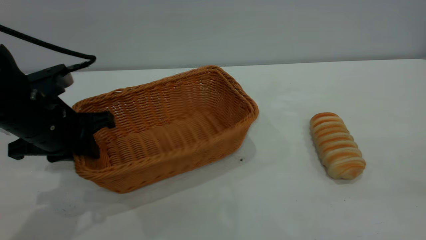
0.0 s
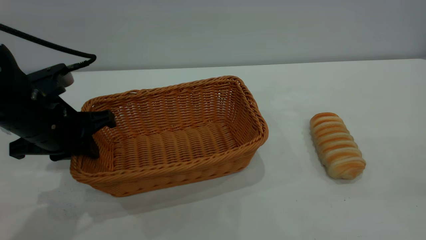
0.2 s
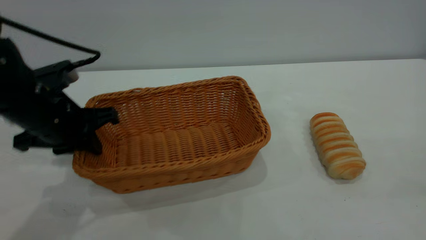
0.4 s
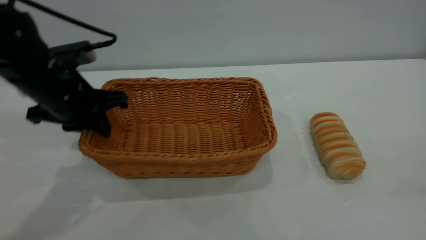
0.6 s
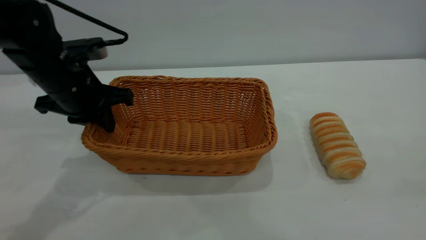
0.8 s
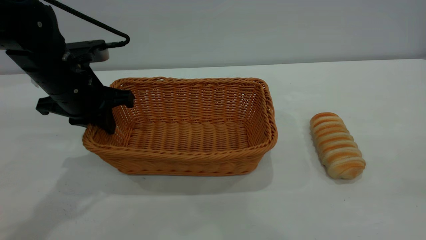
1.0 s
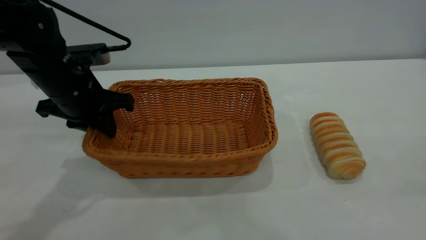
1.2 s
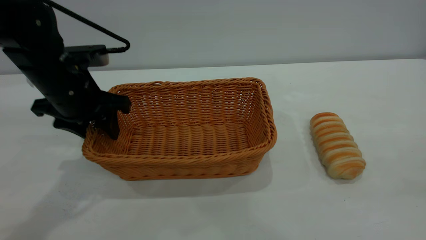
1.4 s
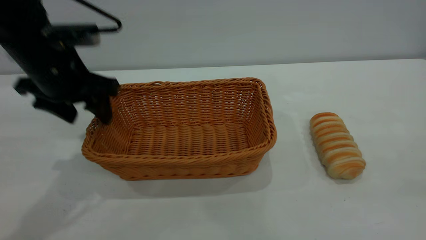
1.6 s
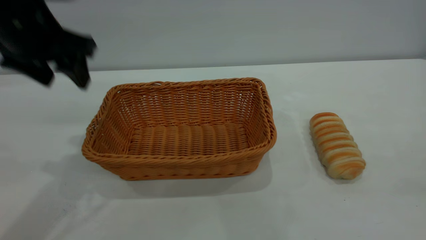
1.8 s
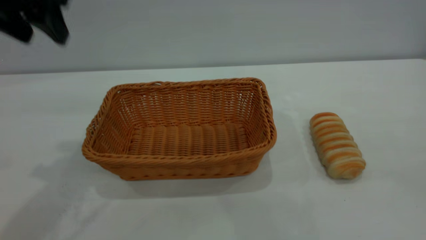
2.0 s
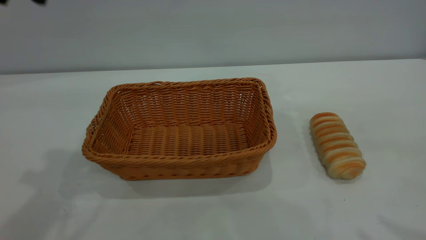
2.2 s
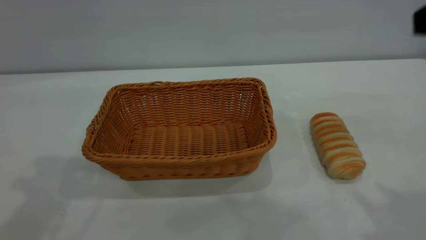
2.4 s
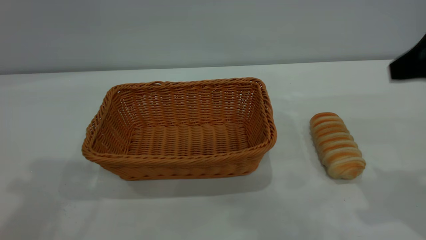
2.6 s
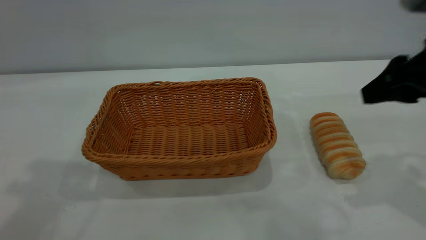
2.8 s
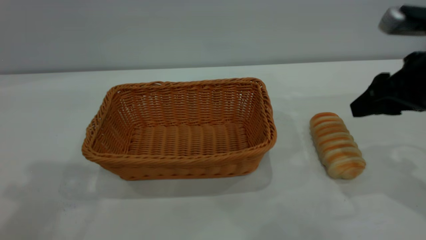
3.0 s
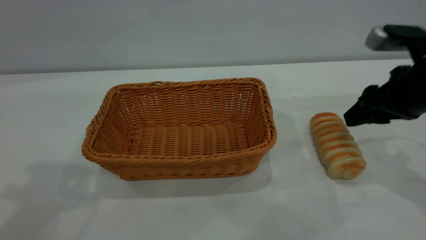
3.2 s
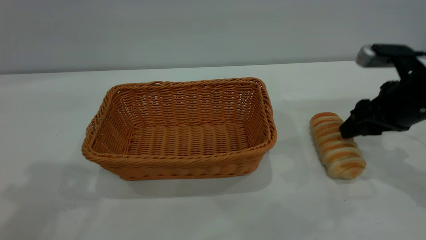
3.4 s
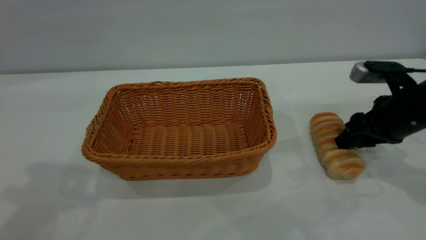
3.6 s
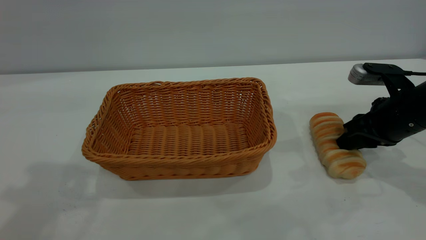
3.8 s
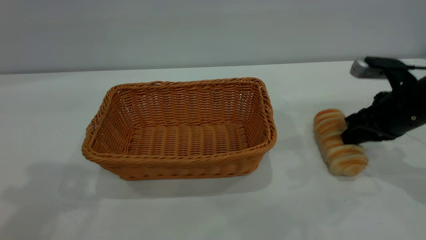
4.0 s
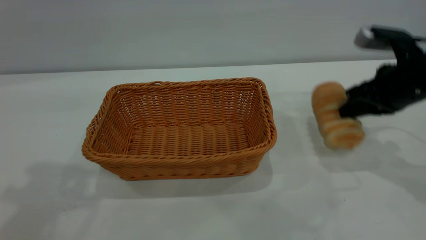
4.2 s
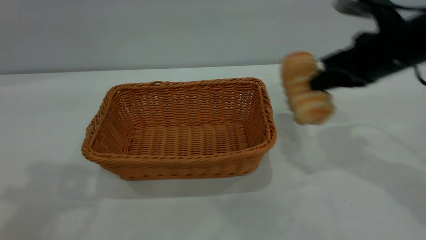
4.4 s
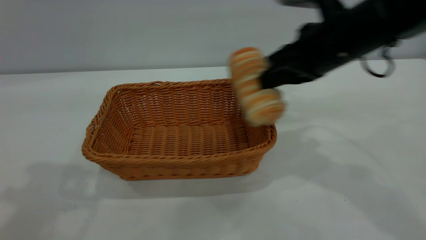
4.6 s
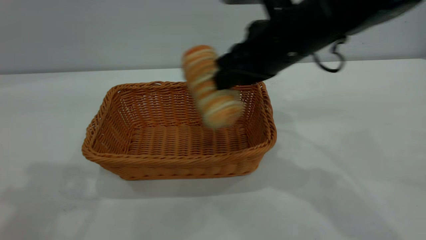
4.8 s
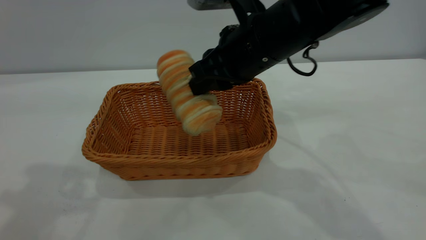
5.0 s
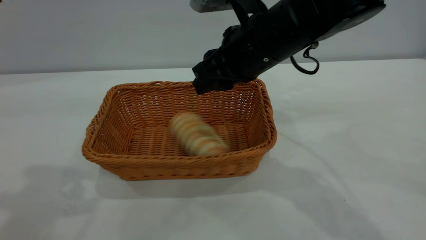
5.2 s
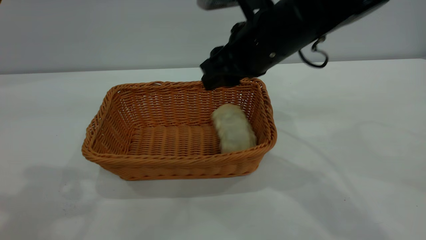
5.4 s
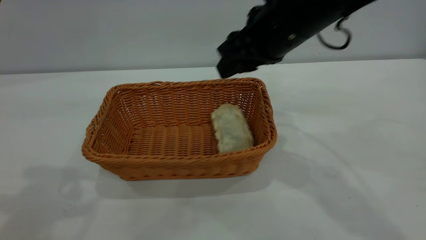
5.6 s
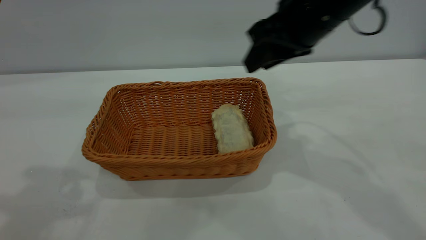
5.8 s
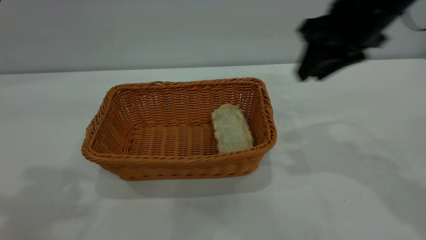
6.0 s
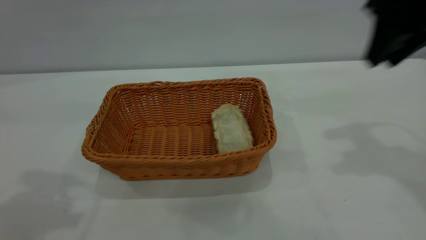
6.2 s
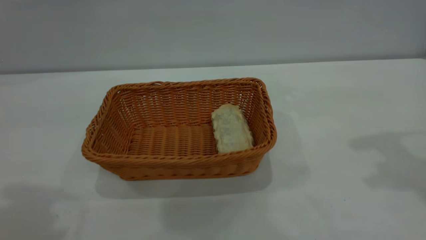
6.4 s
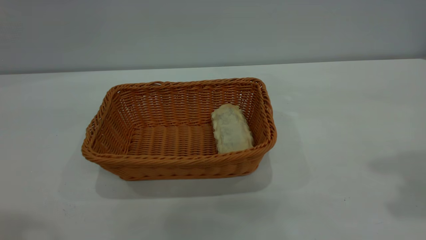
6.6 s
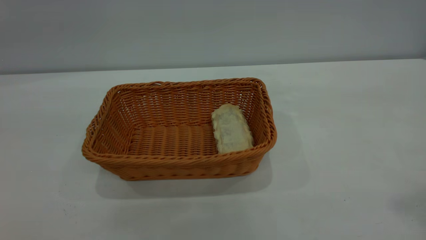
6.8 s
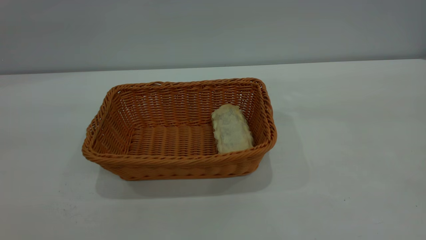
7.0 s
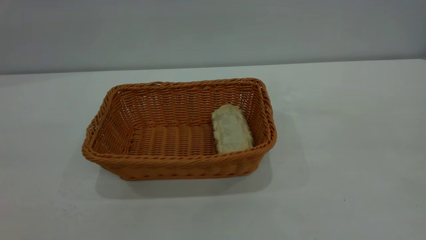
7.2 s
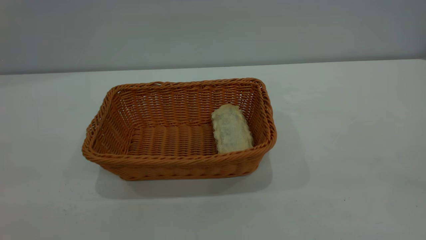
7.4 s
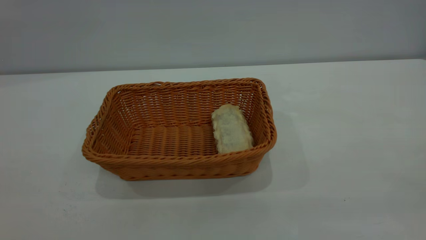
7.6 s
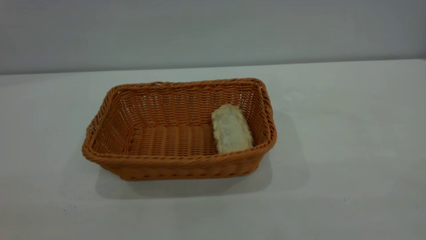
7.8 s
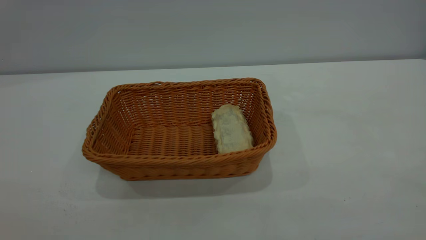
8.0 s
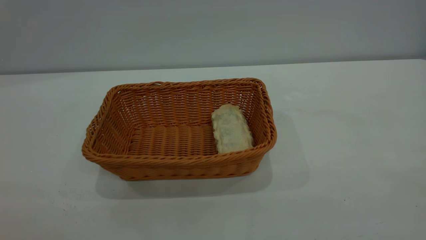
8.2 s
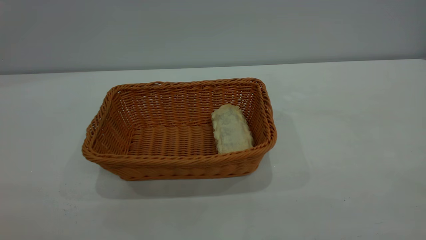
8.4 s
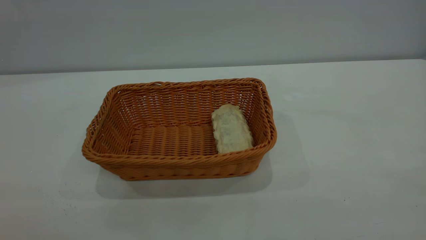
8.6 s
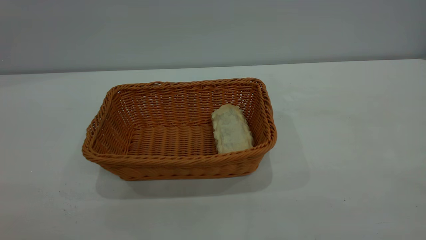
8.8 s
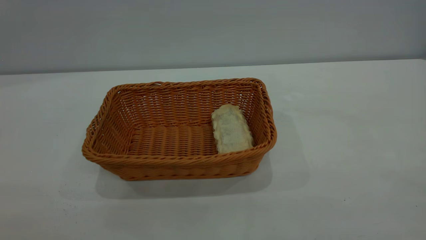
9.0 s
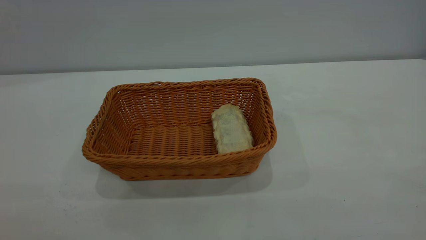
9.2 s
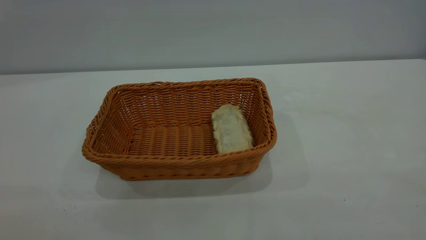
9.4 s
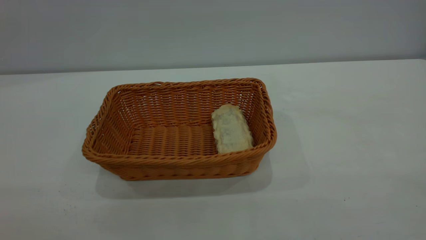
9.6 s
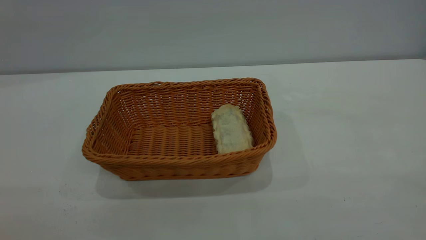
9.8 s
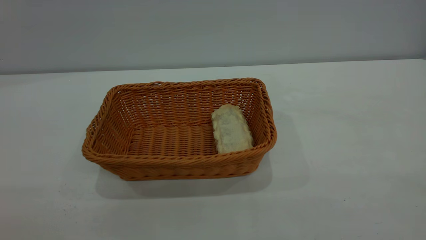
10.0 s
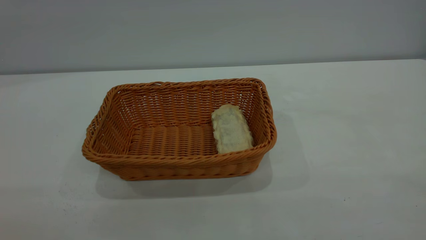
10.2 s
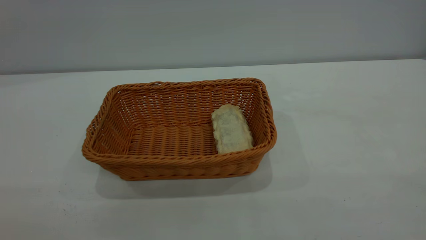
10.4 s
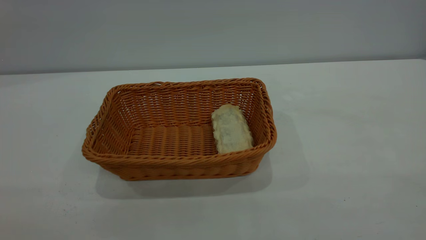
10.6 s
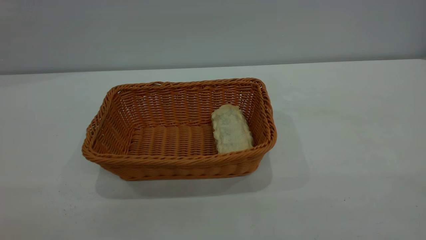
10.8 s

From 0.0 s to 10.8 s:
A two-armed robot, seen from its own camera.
Task of the whole recording: One hand grasps the yellow basket and places it in the middle of the table, while the other hand picks up the long bread and puts it into the yellow basket.
Step, from 4.4 s to 5.6 s: place the bread into the basket.
From 0.0 s to 1.6 s: The left gripper is displaced upward and forward by roughly 10 cm, and opens.
From 1.6 s to 3.0 s: The left gripper goes some 20 cm upward and backward; the right gripper is displaced forward and downward by roughly 35 cm.
From 3.0 s to 4.6 s: The right gripper shifts about 15 cm to the left, and closes.
From 4.6 s to 6.2 s: The right gripper heads to the right and upward, covering roughly 15 cm, and opens.
From 6.2 s to 7.8 s: The right gripper goes some 35 cm backward.
